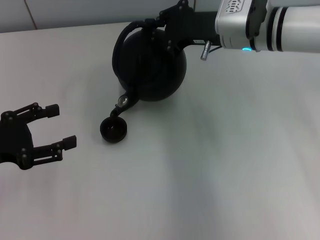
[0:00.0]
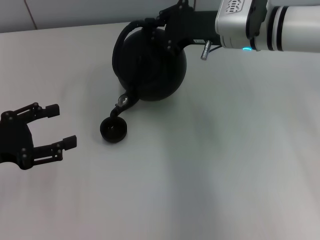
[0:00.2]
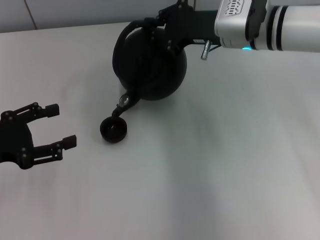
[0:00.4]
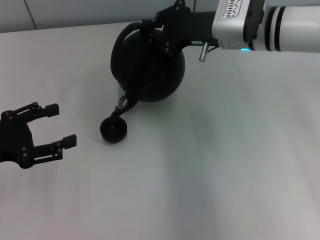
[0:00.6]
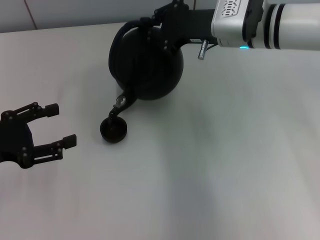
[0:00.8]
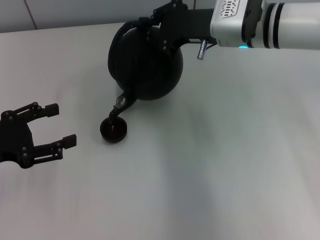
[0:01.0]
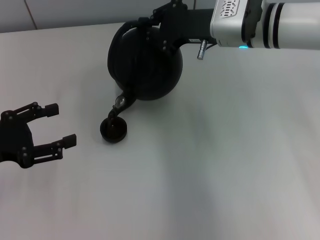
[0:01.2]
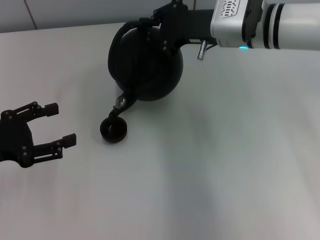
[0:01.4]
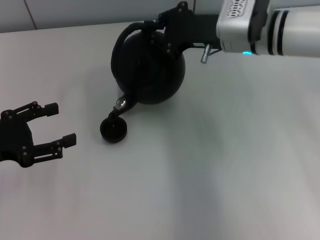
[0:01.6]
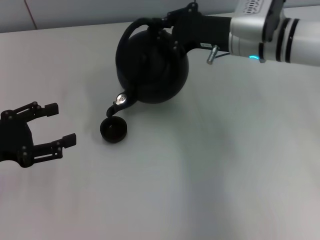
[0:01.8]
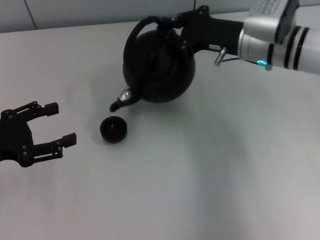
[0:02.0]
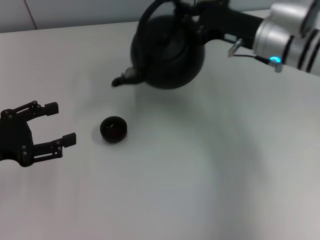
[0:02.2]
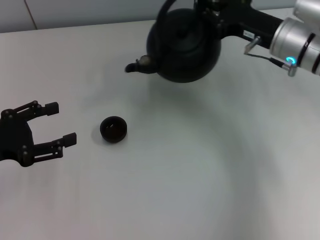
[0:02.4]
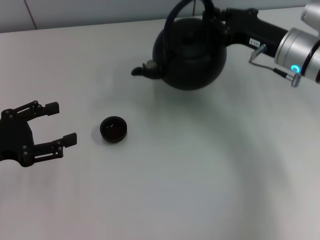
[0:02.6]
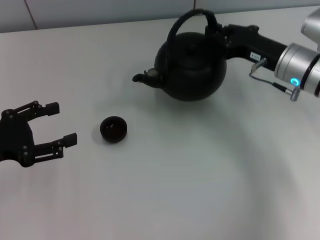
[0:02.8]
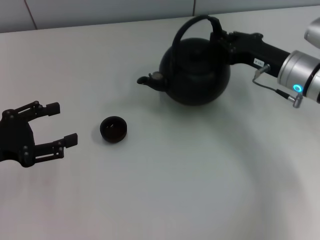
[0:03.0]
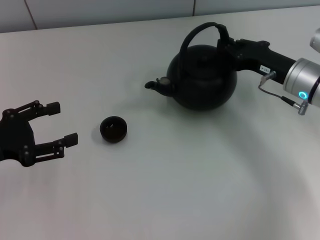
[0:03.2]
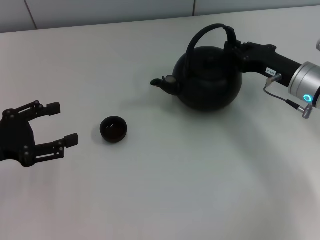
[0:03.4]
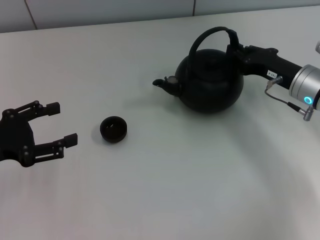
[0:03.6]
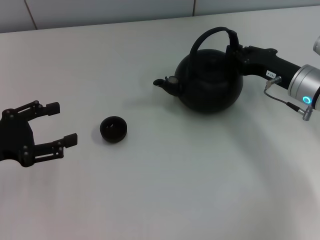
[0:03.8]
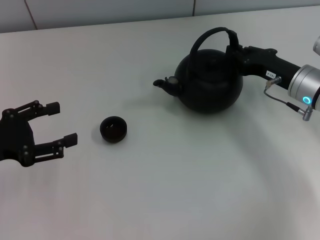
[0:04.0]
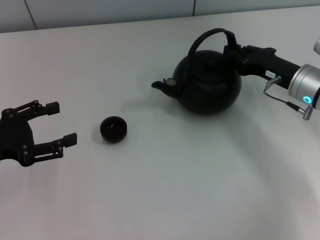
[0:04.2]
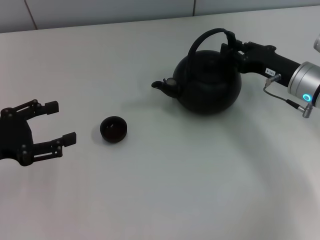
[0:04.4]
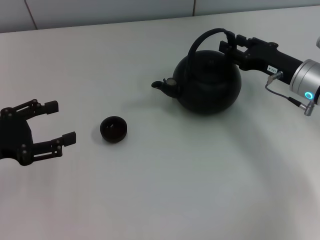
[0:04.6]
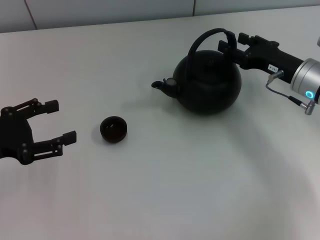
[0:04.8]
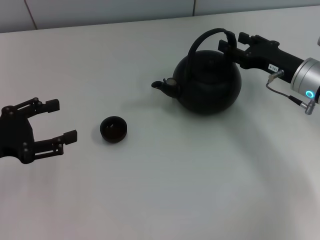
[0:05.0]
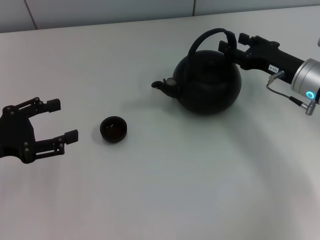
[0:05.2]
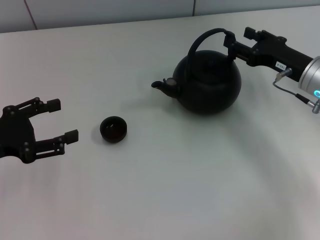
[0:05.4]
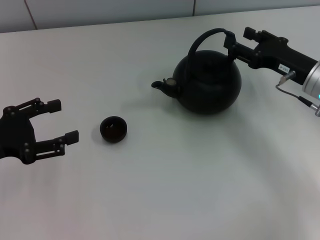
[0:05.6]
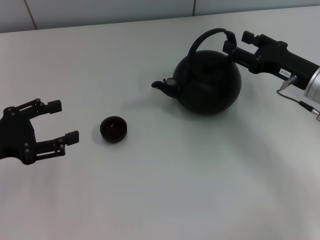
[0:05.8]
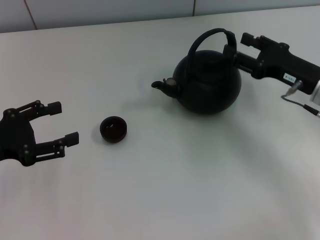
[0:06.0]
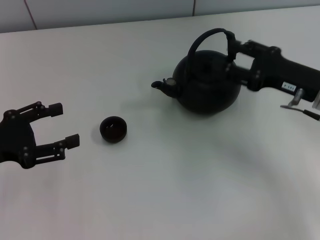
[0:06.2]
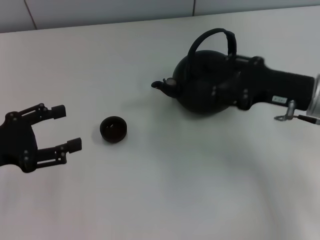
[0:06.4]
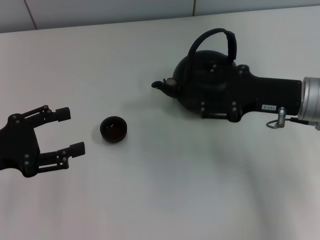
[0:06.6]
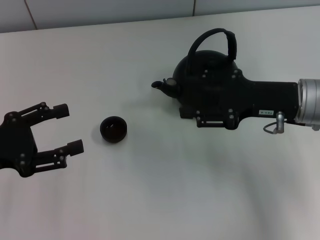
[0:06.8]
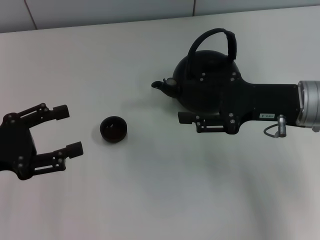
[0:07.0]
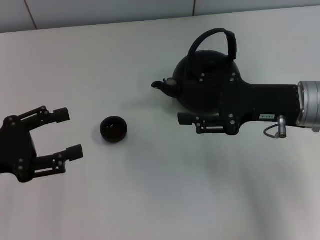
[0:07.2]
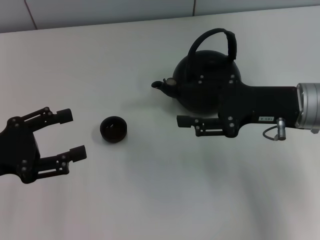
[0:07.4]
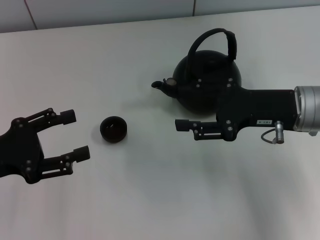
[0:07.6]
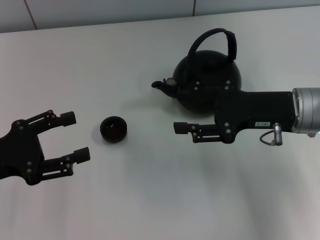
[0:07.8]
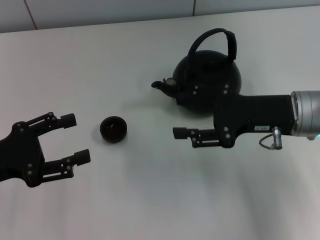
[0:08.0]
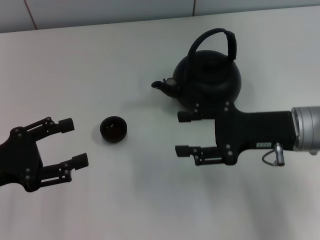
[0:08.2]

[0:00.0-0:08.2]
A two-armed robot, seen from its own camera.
Task of the whole recording: Grasp the handle of the teapot with one hand and pour tea into the teacup.
Step, 0:02.2 to 0:05.8: Put down the teapot with the right gripper.
0:00.0 to 0:01.6: Neither gripper changes place.
0:01.6 to 0:03.2: The right gripper goes roughly 15 cm to the right, downward and backward.
0:03.2 to 0:05.0: The right gripper opens up.
0:05.0 to 0:06.6: The right gripper changes place by some 5 cm.
0:06.6 to 0:08.2: There are only small adjustments of the grippers.

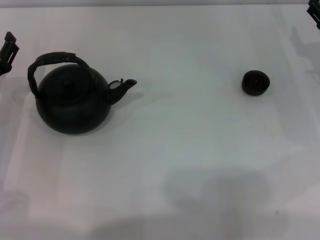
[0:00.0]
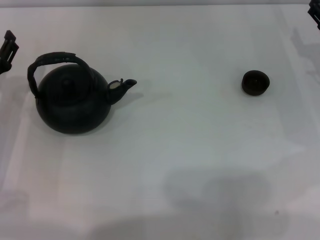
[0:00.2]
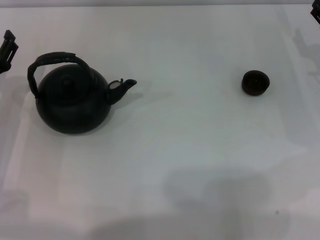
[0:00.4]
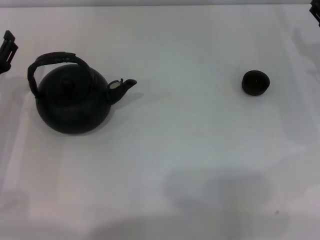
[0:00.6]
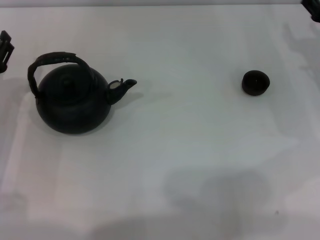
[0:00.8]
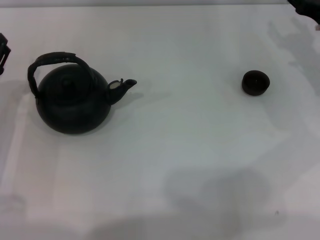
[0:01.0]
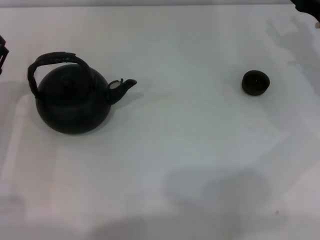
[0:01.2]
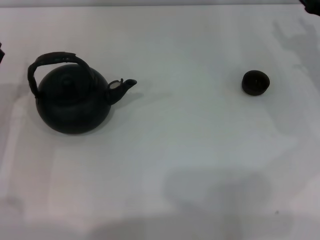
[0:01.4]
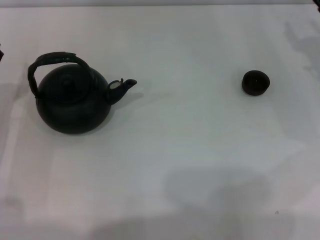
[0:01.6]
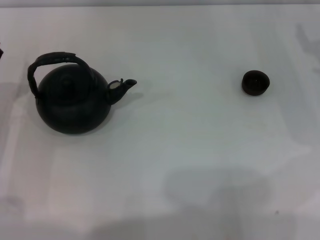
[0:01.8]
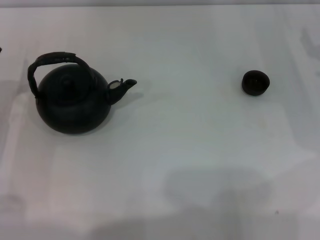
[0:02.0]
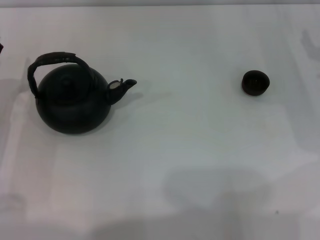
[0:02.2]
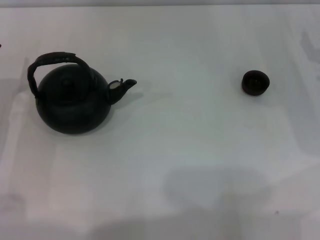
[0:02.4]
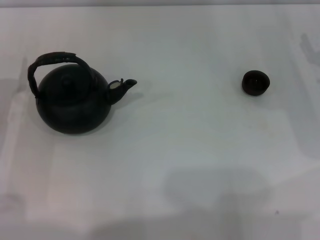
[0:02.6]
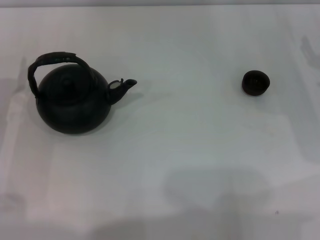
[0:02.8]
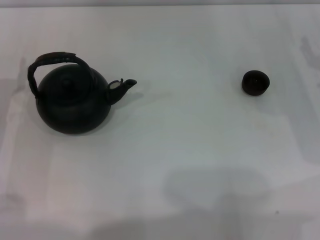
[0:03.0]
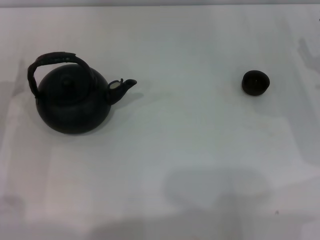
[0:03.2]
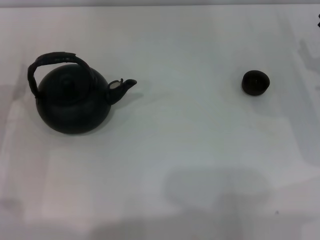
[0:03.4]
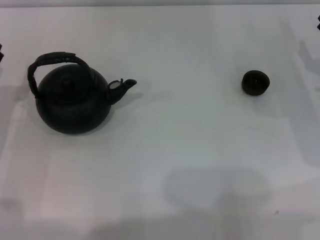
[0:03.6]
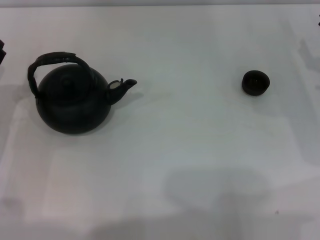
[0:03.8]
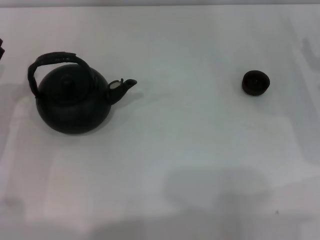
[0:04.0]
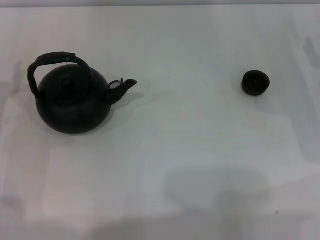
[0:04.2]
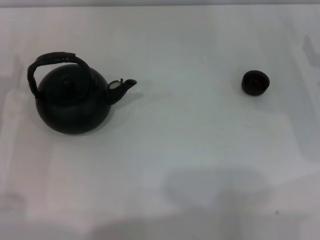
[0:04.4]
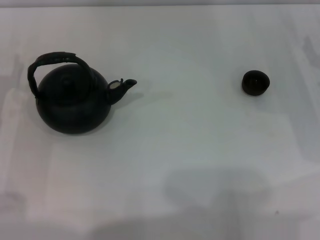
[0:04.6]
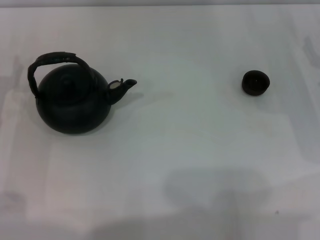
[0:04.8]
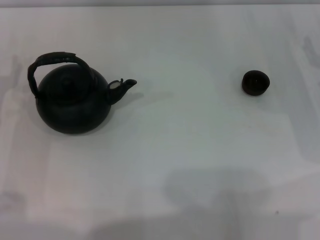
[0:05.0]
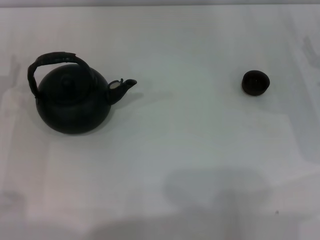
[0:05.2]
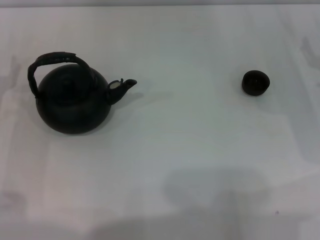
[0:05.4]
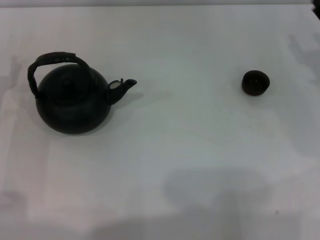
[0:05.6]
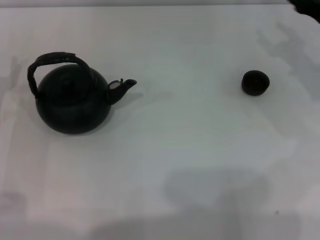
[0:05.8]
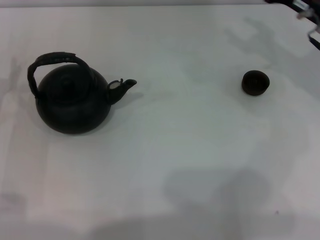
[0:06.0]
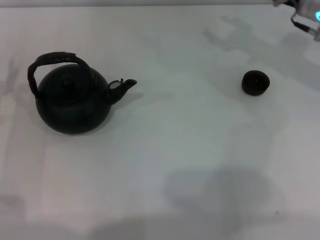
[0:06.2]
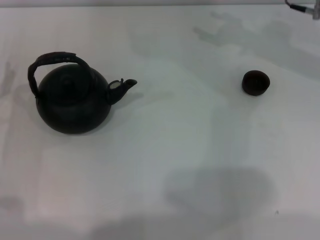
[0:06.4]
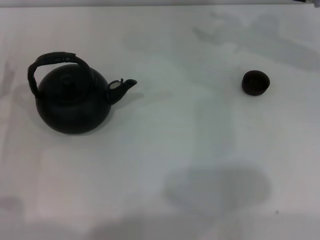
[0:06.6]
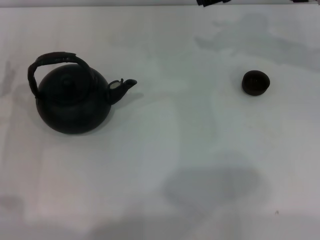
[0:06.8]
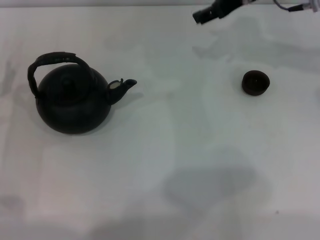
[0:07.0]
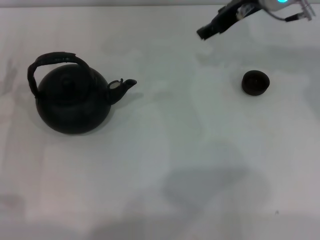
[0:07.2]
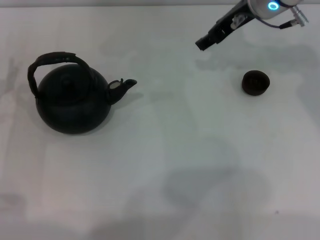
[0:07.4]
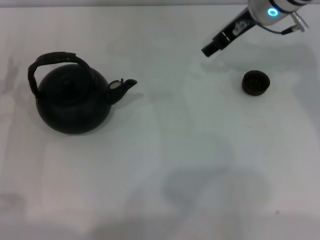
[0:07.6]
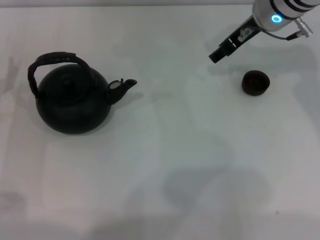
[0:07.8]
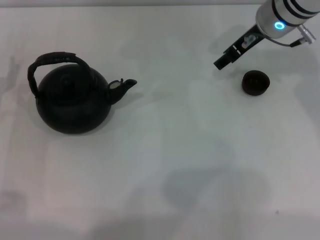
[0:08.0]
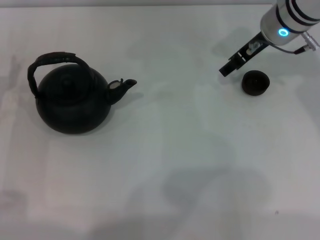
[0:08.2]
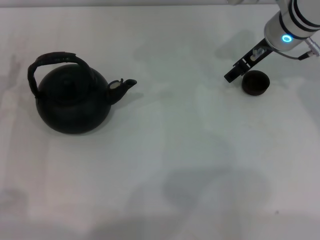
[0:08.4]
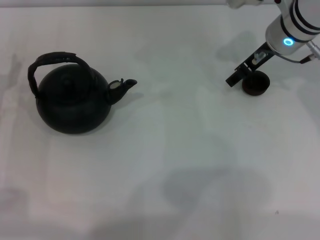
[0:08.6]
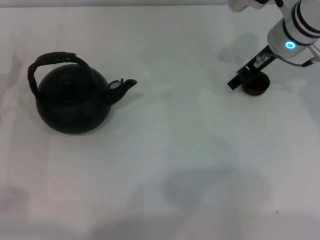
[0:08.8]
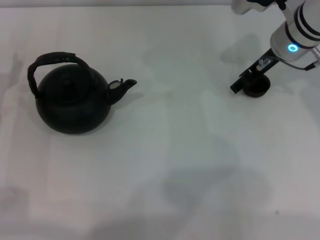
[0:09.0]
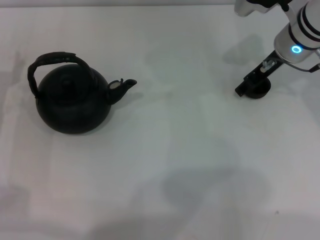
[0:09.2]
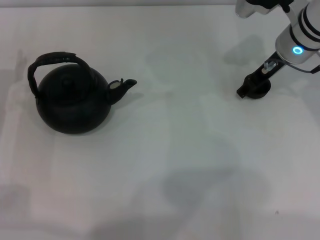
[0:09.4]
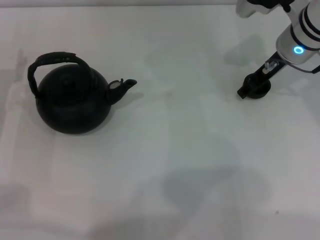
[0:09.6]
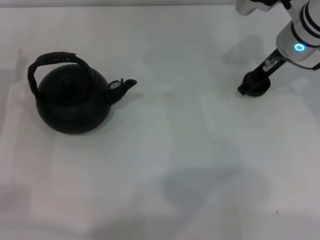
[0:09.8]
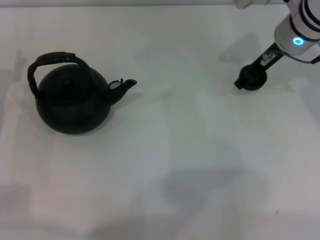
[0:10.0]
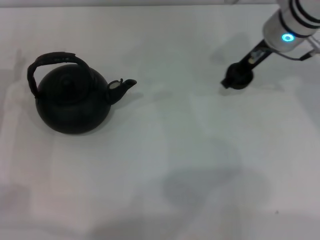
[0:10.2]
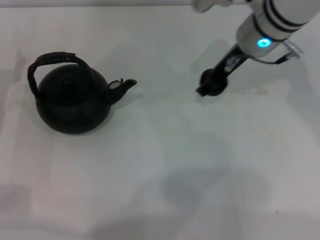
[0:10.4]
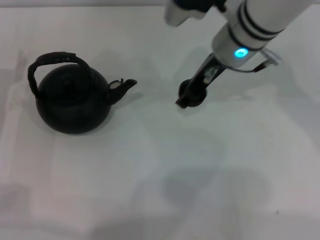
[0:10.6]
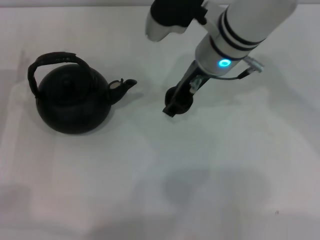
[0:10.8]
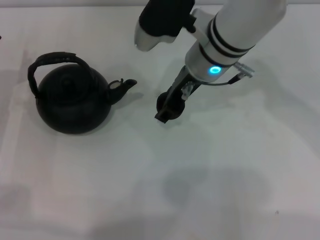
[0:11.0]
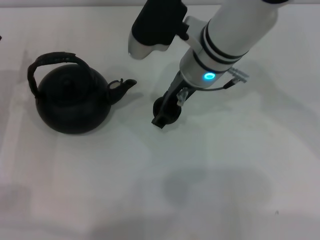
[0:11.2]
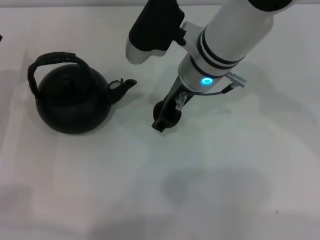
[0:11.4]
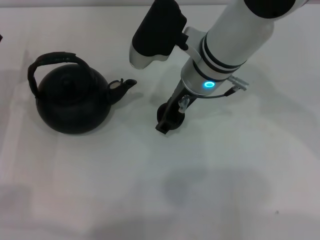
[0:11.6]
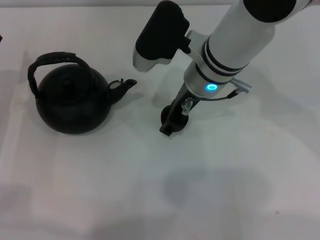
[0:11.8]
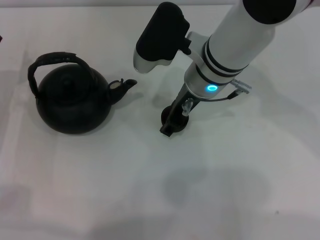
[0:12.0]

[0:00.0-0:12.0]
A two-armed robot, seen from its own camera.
Task of the whole recording: Grasp the handle of the teapot with one hand and pour tea into the teacup.
Step, 0:00.0 to 0:10.2: Pick up the teacup with the right gripper.
0:00.0 to 0:01.6: The grippers make only small movements.
0:04.4 to 0:06.0: The right gripper shifts about 10 cm upward, to the left and forward.
0:06.0 to 0:07.6: The right gripper travels to the left and forward by about 10 cm.
0:07.6 to 0:09.0: The right gripper ends up some 5 cm from where it was.
0:09.0 to 0:10.4: The right gripper moves to the left, approximately 5 cm.
0:10.4 to 0:12.0: The right gripper moves to the left, approximately 5 cm.

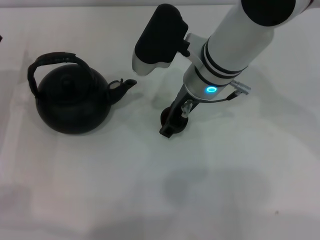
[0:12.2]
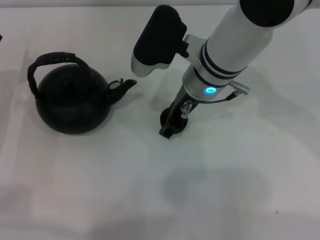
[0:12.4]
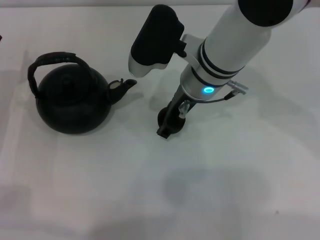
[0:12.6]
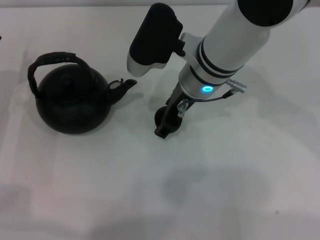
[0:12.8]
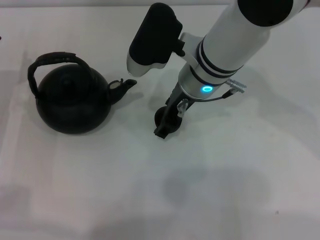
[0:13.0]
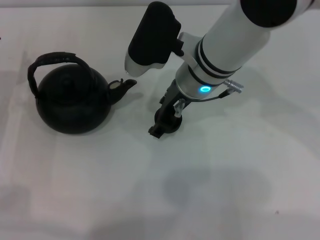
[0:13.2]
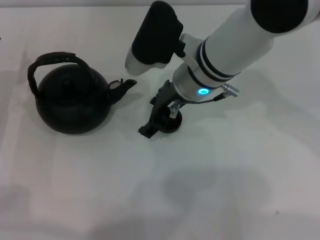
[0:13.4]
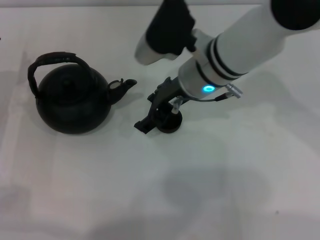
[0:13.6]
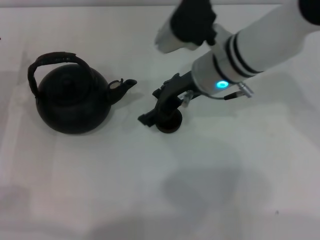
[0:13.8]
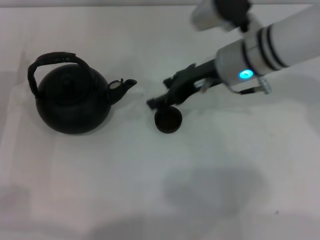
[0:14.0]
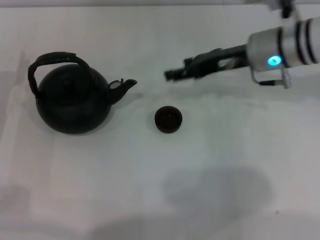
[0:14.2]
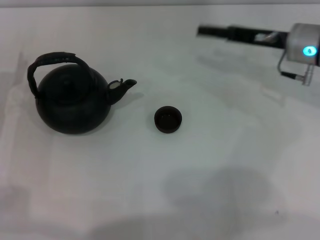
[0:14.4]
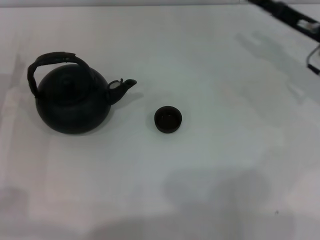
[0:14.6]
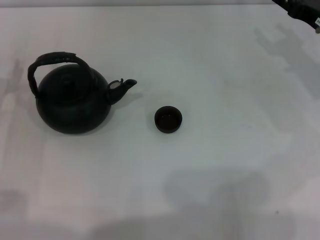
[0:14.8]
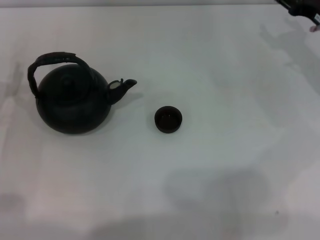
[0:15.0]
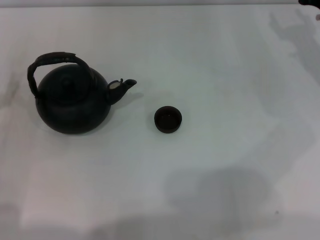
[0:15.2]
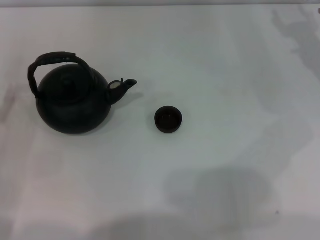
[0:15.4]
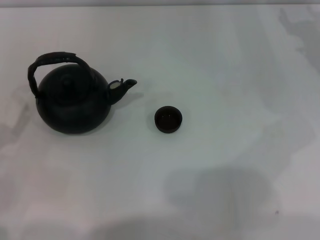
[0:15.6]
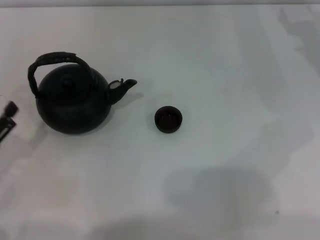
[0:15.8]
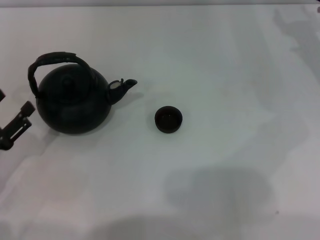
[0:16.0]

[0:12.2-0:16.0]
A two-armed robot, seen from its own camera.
Task of the whole recording: Grasp the handle of the teapot with one hand and pour tea into the teacup.
0:12.2 to 0:13.4: The grippers make only small movements.
0:13.4 to 0:14.8: The right gripper heads to the right, covering roughly 25 cm.
0:14.8 to 0:16.0: The left gripper is displaced backward by roughly 10 cm.